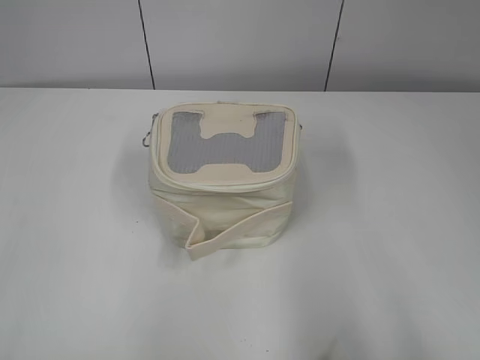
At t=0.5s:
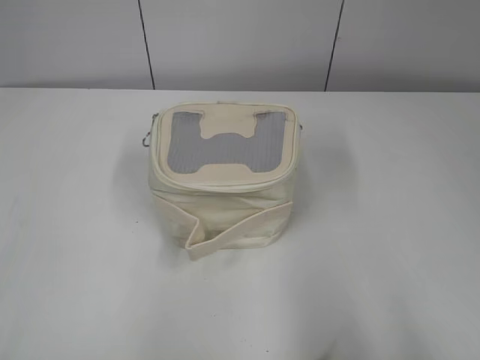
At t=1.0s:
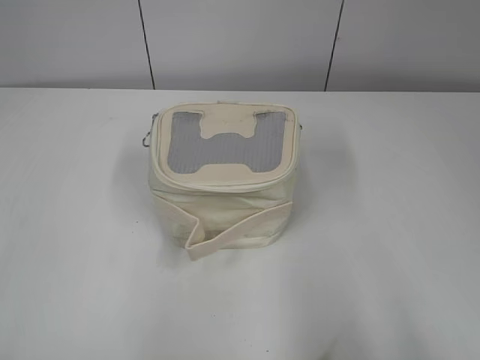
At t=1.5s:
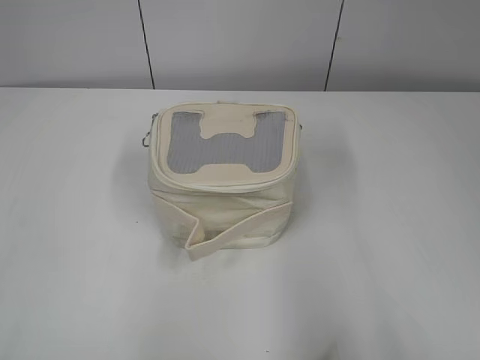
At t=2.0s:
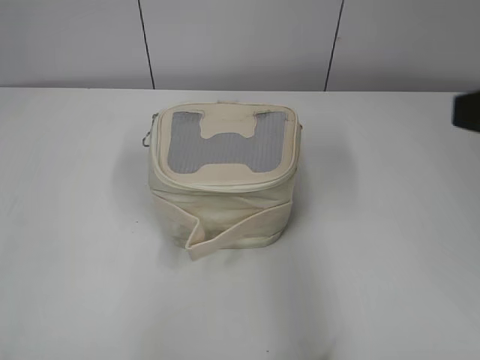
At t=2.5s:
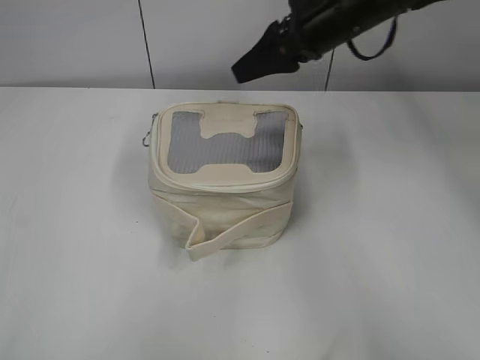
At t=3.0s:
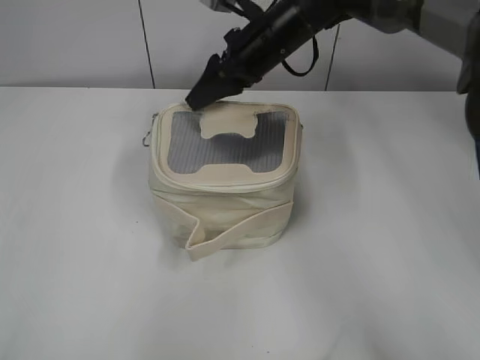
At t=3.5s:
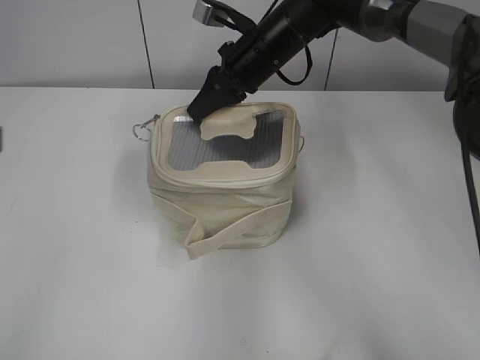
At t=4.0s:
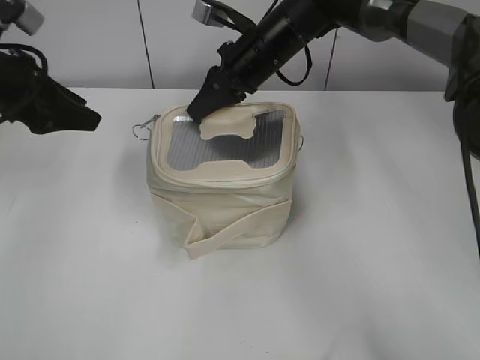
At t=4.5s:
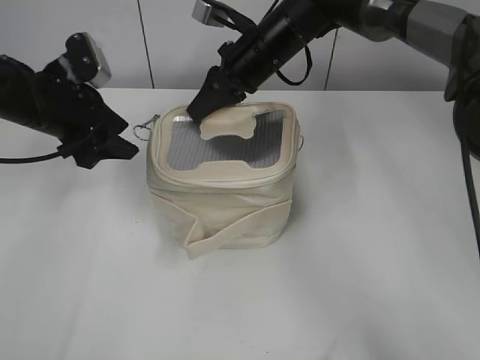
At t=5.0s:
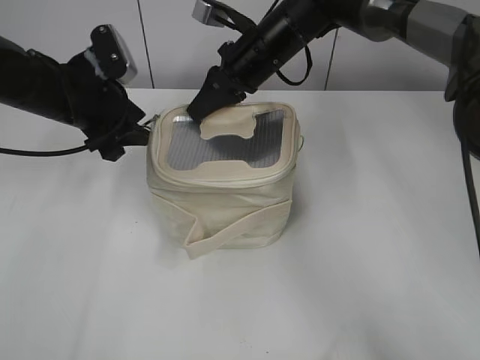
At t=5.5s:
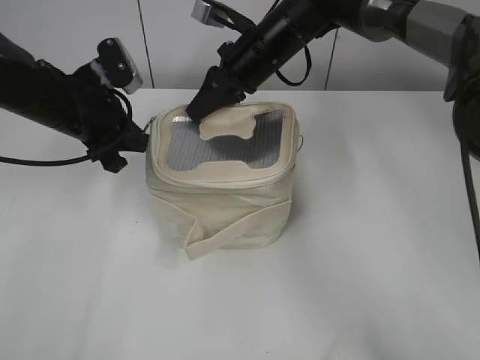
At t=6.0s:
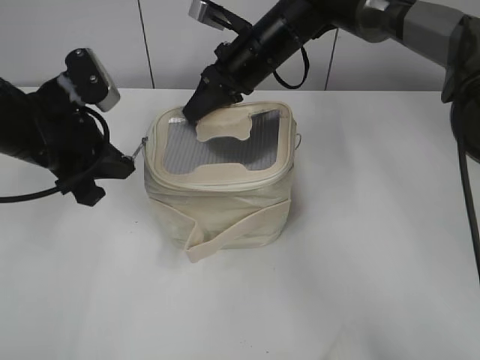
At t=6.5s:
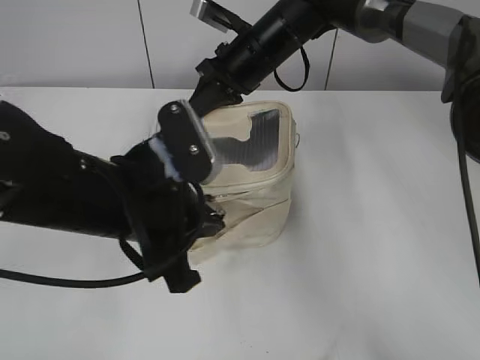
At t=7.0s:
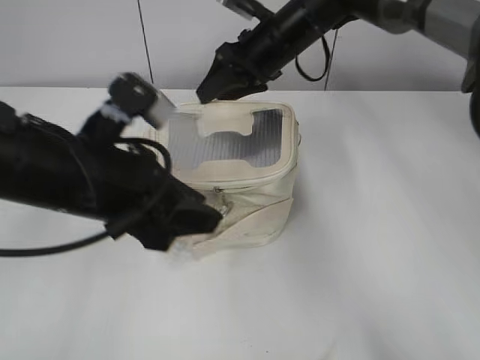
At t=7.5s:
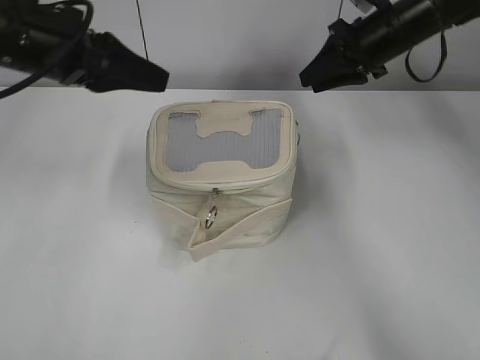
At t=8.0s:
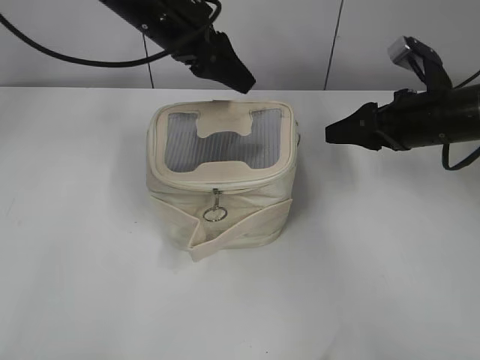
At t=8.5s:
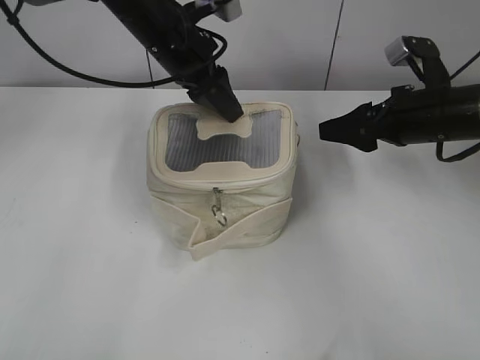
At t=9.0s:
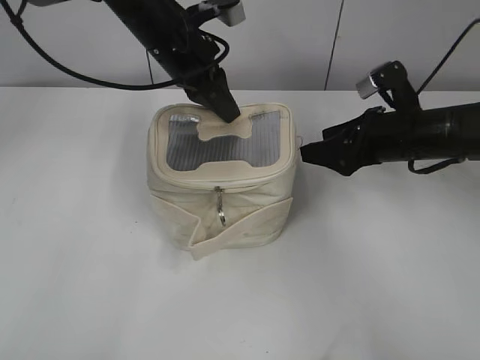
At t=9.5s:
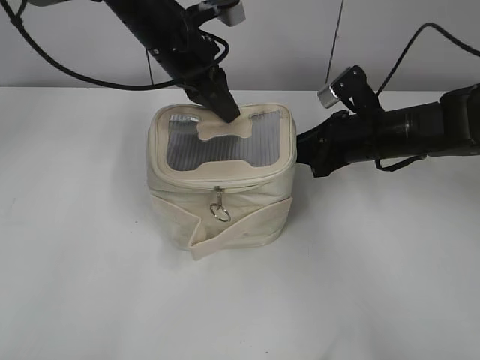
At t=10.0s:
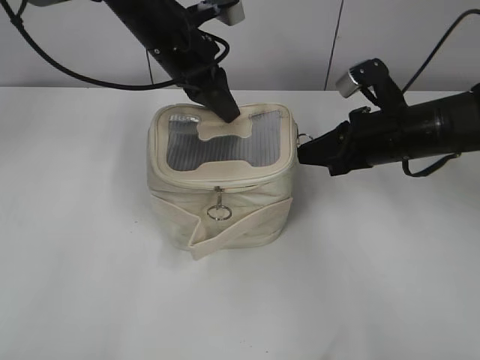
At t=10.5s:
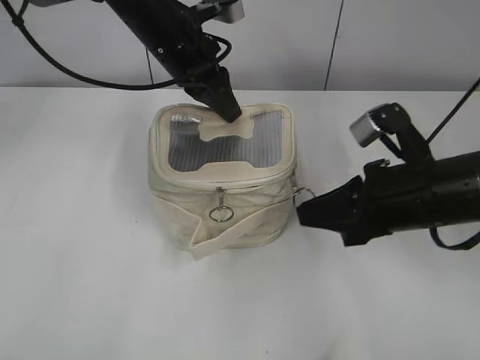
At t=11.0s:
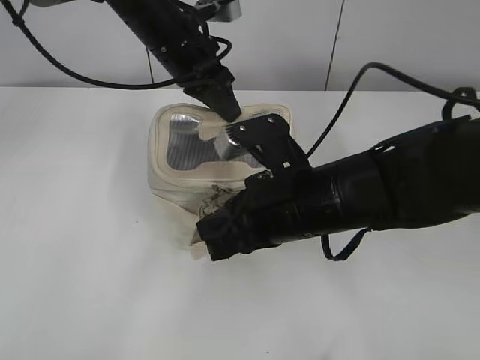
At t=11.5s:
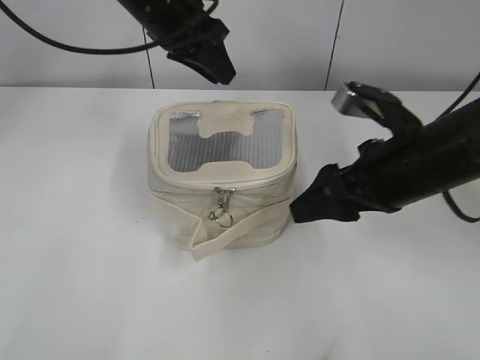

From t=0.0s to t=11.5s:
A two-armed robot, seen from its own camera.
Step, from t=0.0s to t=6.5s: Zip up the bag with your left hand.
Step, from t=7.5s to t=11.0s: Zip up the bag with your right hand.
From t=2.0s to t=4.0s: The right gripper goes approximately 40 cm forward, to the left and downward, and closes its fingers; the left gripper heads forward, covering roughly 30 cm.
From t=4.0s to t=6.0s: The left gripper heads to the right, covering about 5 cm, and closes its fingers.
From t=6.0s to t=7.5s: The left gripper shifts some 10 cm upward, travels backward and back again, some 10 cm each way, and opens. The right gripper goes about 15 cm to the right, and opens.
From t=7.5s to t=9.5s: The left gripper is displaced forward and to the right by about 20 cm, and closes its fingers. The right gripper travels backward and downward by approximately 15 cm, and opens and closes again.
From t=9.5s to t=11.5s: The left gripper opens up; the right gripper travels backward and upward by about 15 cm, and opens.

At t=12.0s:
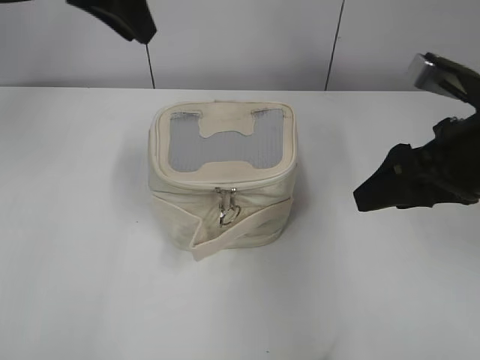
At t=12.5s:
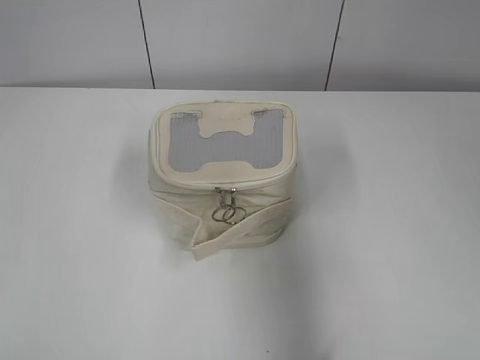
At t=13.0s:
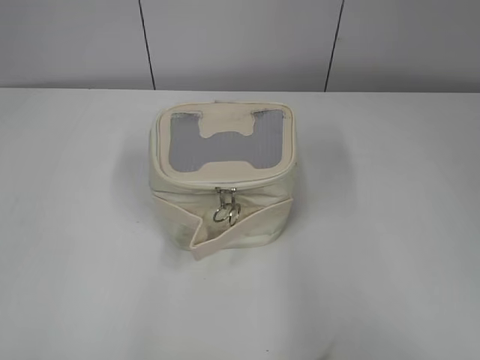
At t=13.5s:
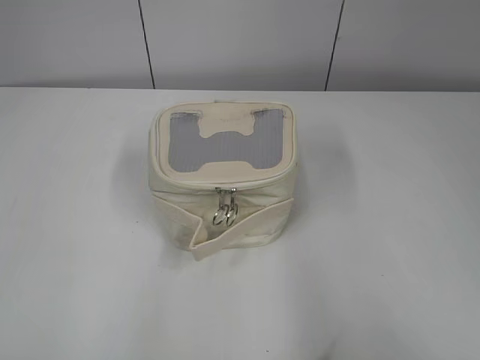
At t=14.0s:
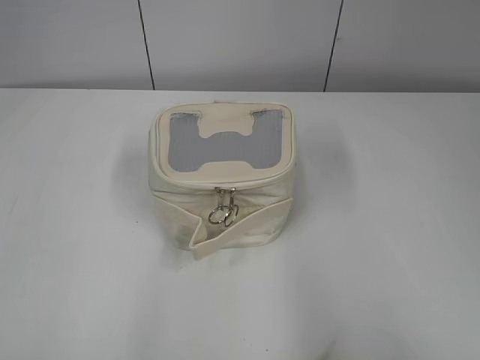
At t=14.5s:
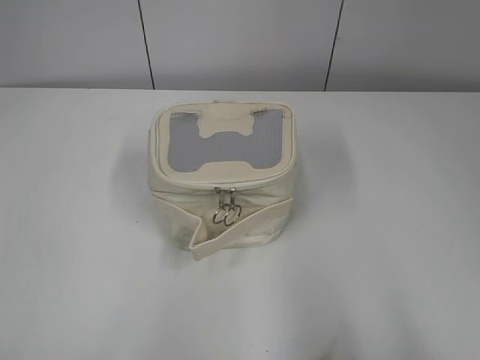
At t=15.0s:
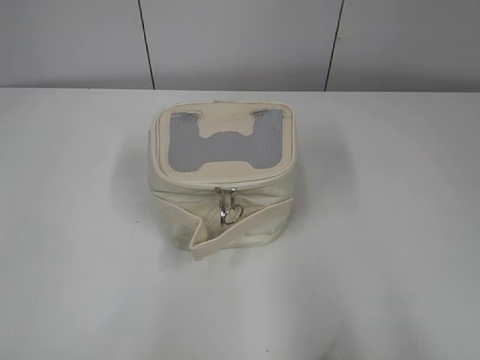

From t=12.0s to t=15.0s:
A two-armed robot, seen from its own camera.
From t=12.0s to t=13.5s: The left gripper moves backward and to the left, approximately 40 cm, and opens. The right gripper moves backward, roughly 25 cm.

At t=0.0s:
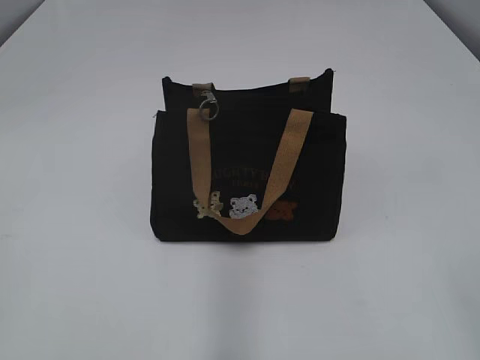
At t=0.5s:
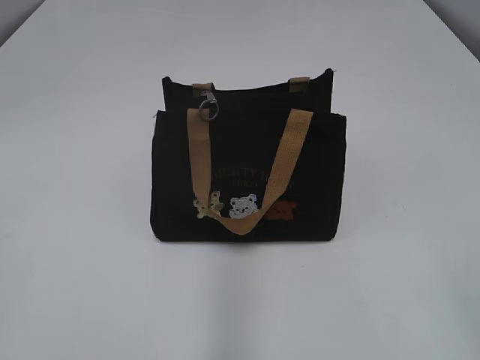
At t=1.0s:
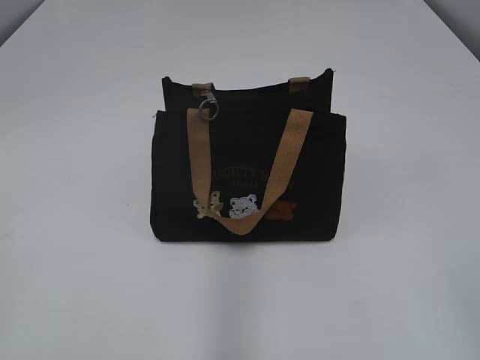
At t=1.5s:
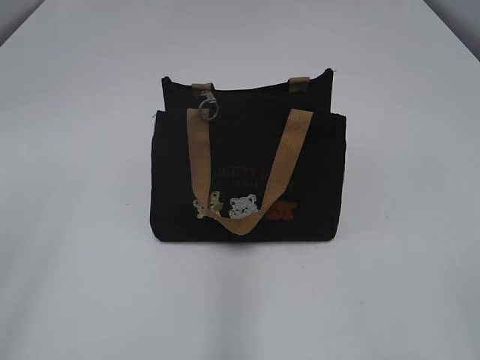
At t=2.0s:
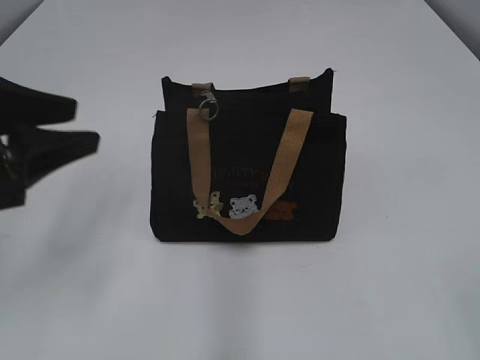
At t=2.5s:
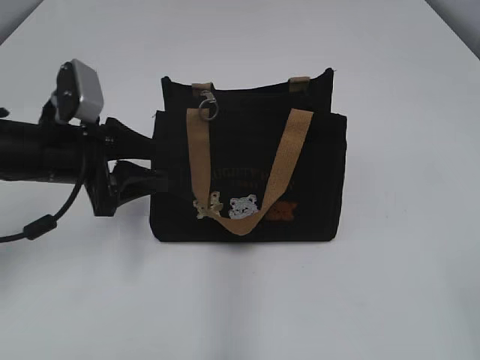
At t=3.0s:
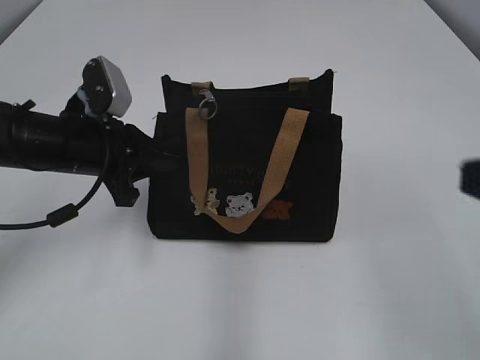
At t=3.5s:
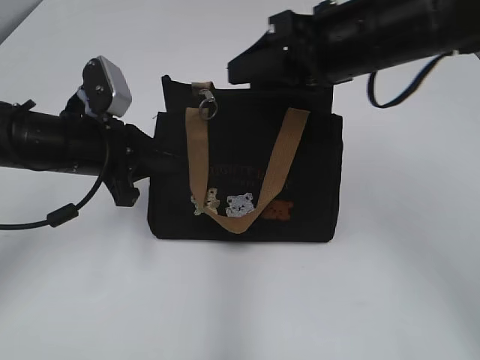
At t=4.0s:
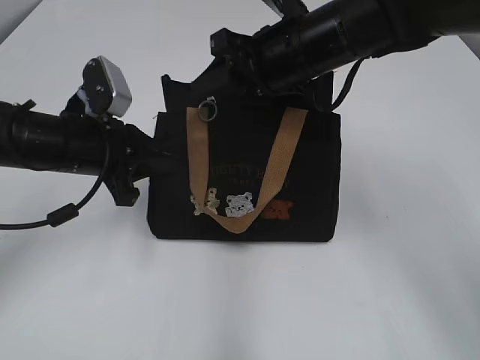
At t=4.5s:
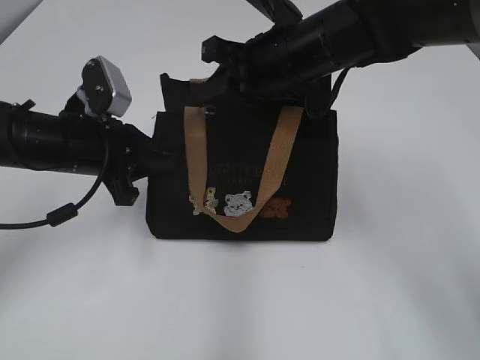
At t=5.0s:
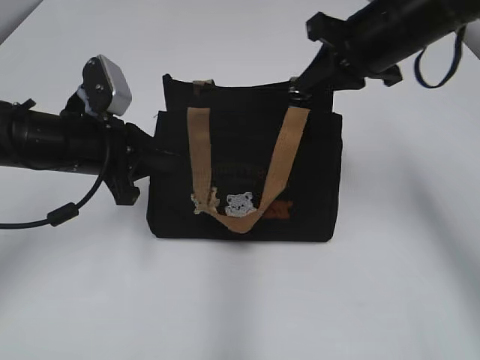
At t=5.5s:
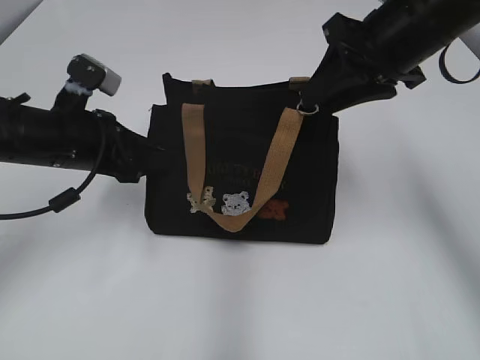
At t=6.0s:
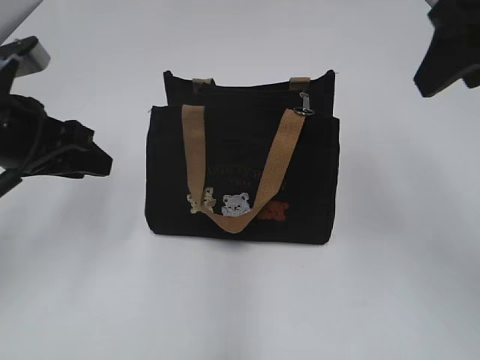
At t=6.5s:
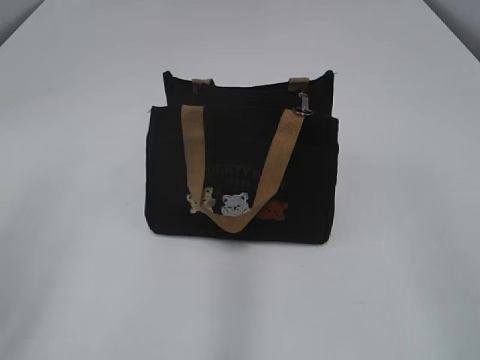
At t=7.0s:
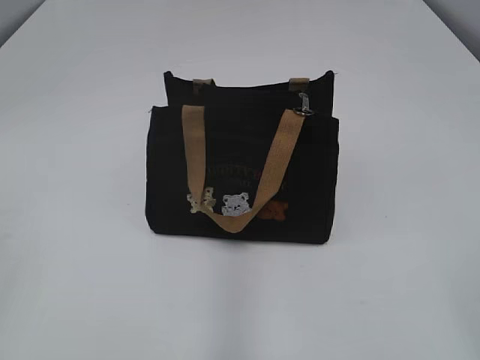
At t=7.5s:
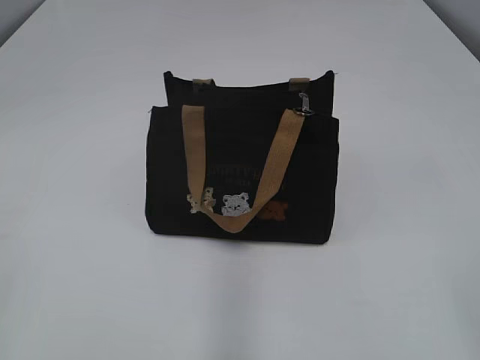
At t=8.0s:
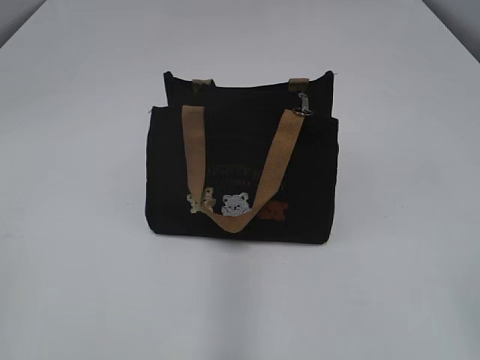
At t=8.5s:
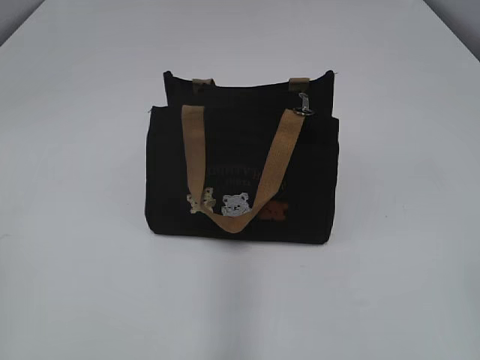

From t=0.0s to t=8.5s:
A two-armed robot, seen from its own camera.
Step, from t=0.0s to t=5.5s: Pull open the zipper with your right hand.
From t=2.0s to t=4.0s: The right gripper is displaced forward and to the left by some 40 cm. The left gripper heads forward, downward and to the right, covering approximately 15 cm, and closes its fingers.
From t=4.0s to t=6.5s: The right gripper is displaced backward and to the right by some 35 cm, and closes and opens again. Meanwhile the left gripper heads backward, upward and to the left, covering about 20 cm, and opens up.

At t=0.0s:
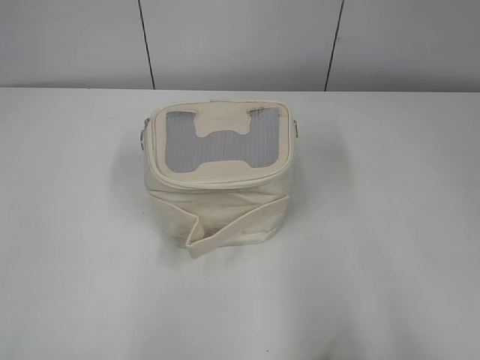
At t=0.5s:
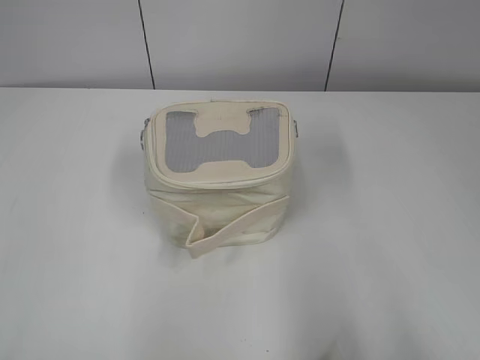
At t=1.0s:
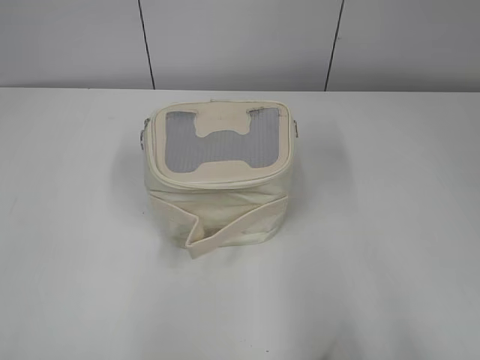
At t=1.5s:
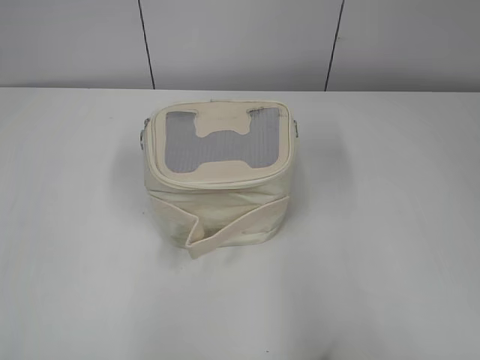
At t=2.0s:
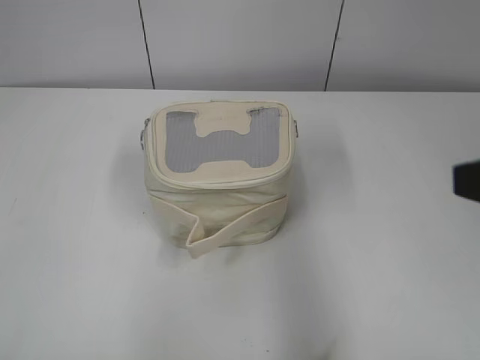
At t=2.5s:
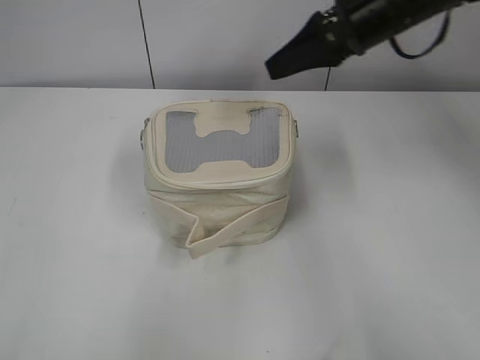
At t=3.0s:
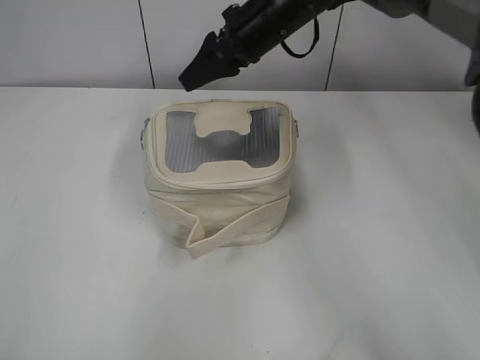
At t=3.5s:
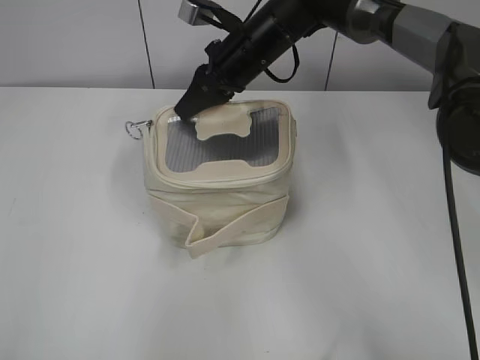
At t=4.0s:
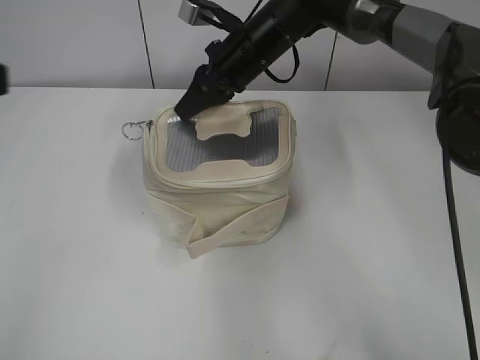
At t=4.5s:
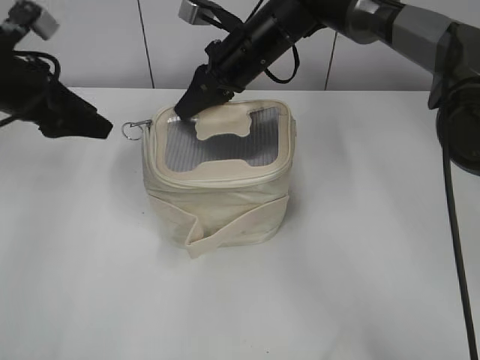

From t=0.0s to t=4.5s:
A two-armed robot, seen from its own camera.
From t=2.0s to t=4.5s: The right gripper moves forward and to the left, roughly 40 cm, and closes; the left gripper heads forward, covering roughly 35 cm, and opens its fingers.
